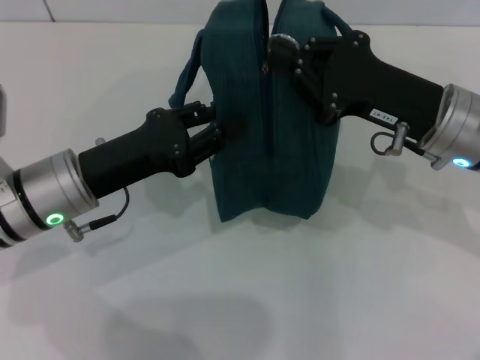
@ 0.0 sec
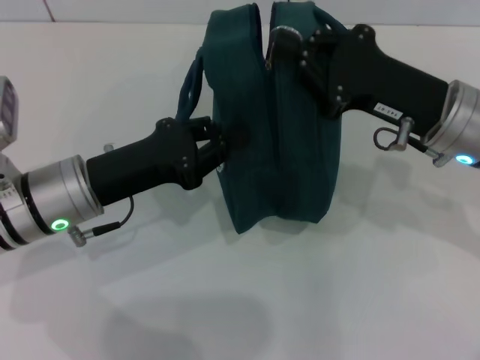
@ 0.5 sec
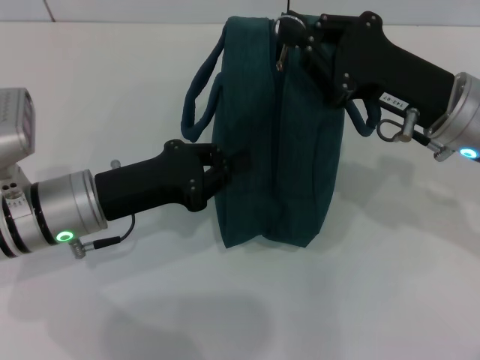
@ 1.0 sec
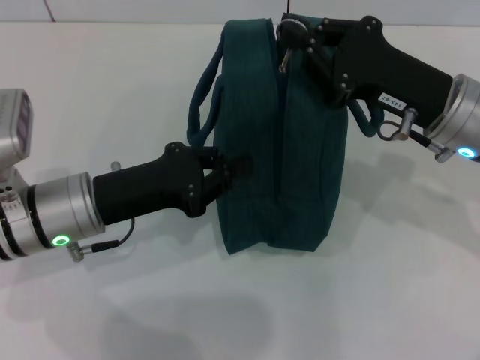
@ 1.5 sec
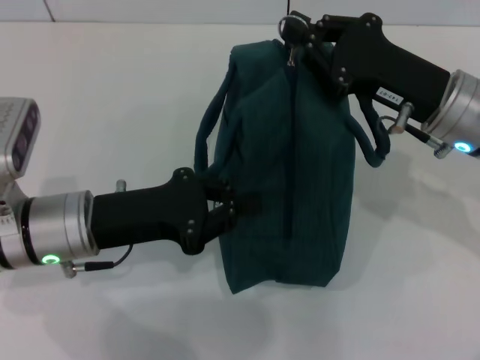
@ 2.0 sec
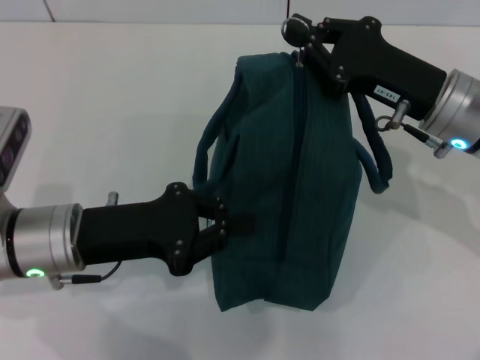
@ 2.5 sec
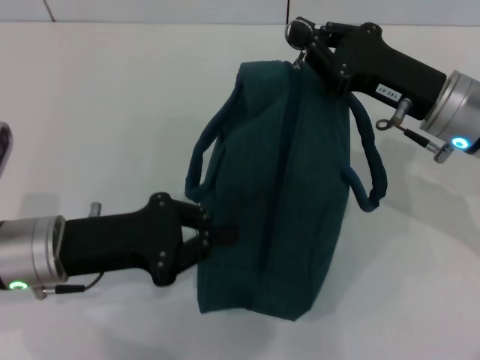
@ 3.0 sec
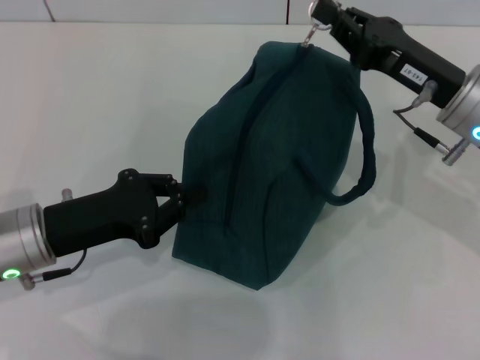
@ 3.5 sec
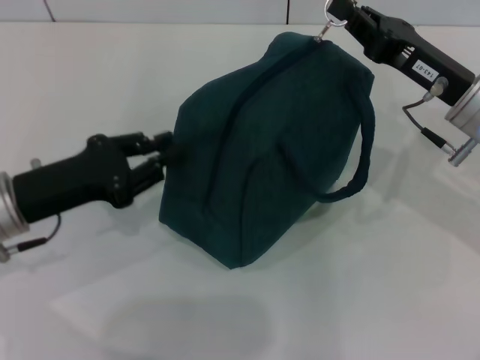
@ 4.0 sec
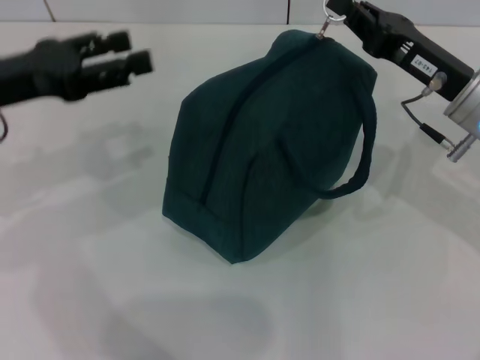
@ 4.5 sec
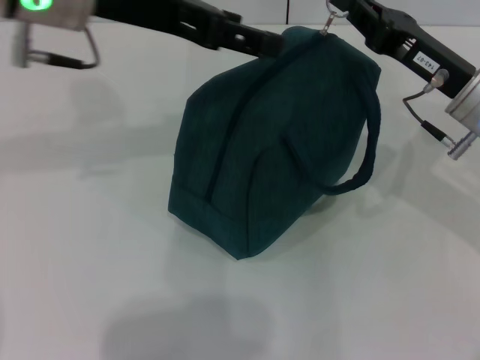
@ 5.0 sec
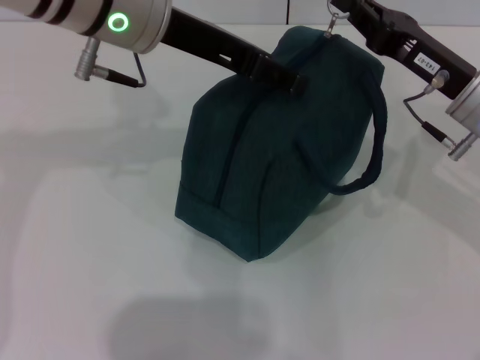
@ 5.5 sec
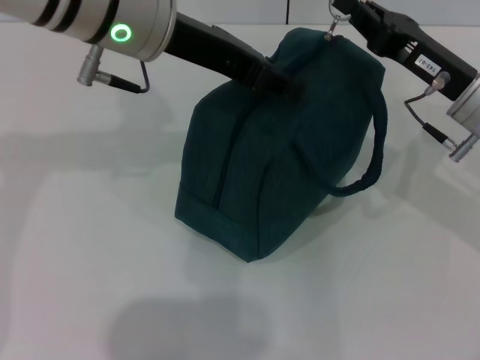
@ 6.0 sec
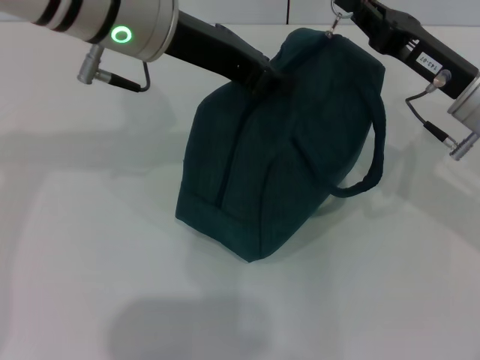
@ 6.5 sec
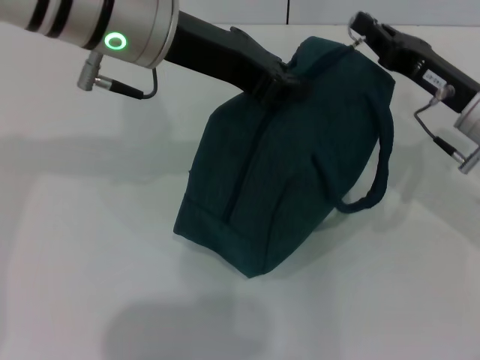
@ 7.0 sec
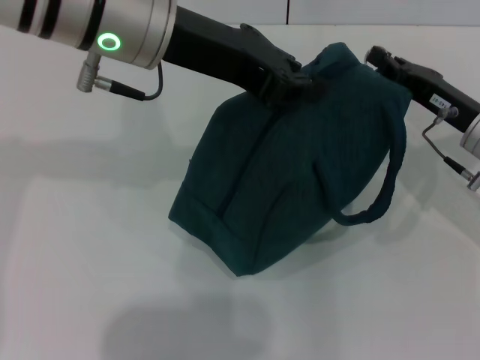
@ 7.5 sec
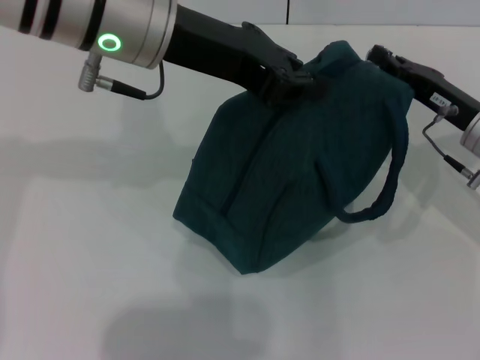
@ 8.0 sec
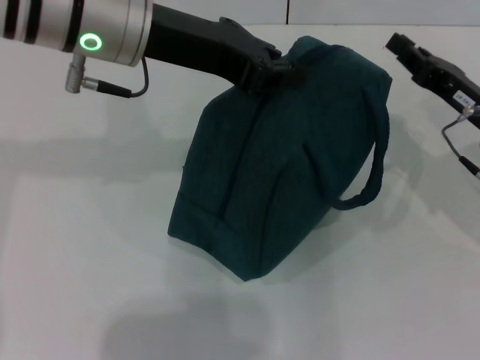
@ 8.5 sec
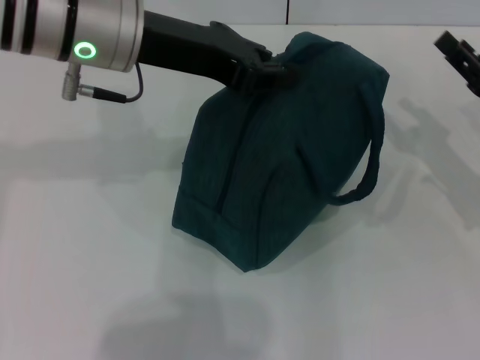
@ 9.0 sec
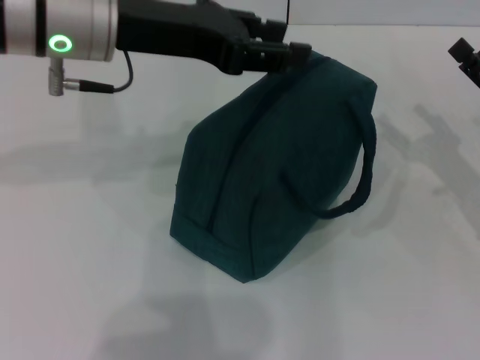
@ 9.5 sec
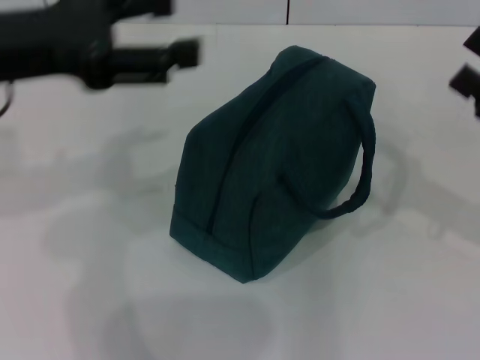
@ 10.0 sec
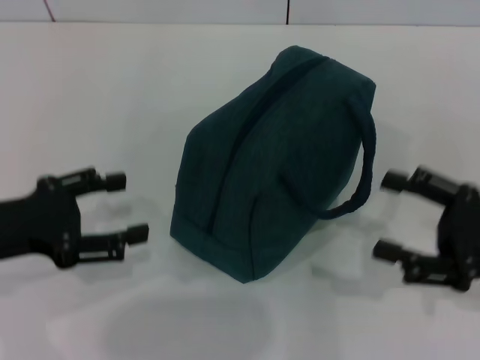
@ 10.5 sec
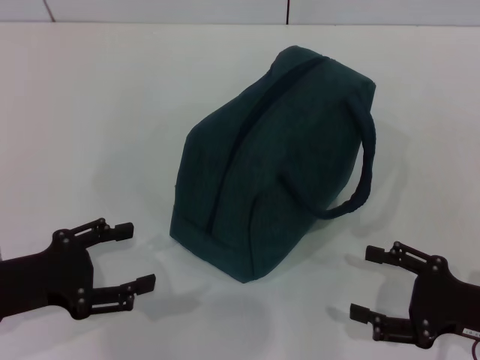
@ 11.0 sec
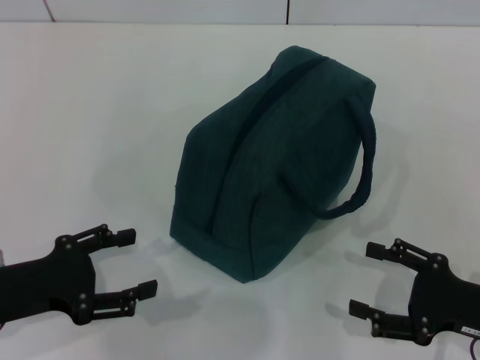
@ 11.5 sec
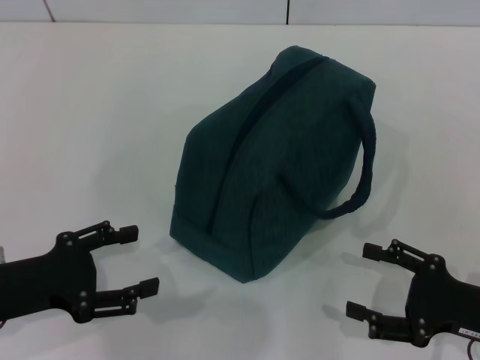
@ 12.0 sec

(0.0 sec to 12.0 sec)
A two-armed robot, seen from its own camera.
Step, 0.0 sec - 8.0 sec: Zip up the lunch bag with your right hand.
Step, 8.5 sec - 9.0 sec: Hold the lunch bag with your left hand.
0.0 sec - 2.0 sec: The left gripper closes up.
2.0 sec - 4.0 sec: The left gripper moves to the left, approximately 5 cm.
4.0 sec - 6.0 sec: The left gripper is displaced upward, to the right and forward by some 25 cm, and opens its fingers.
6.0 sec - 8.0 sec: The left gripper closes its fingers. The right gripper changes place by some 5 cm.
8.0 sec - 10.0 sec: The right gripper is displaced backward and to the right by some 10 cm, and opens. The left gripper shifts some 15 cm to the left and backward, and opens up.
10.0 sec - 12.0 sec: The right gripper travels downward and backward by approximately 15 cm. The left gripper is displaced downward and backward by some 20 cm.
